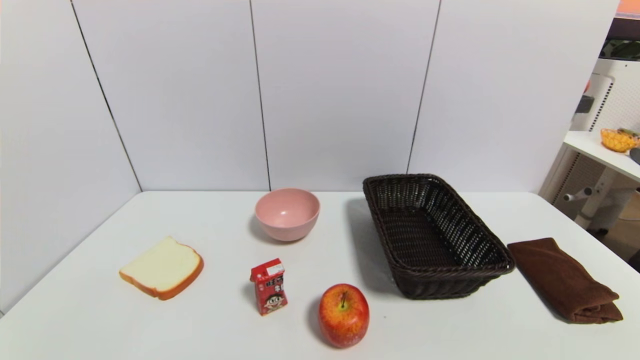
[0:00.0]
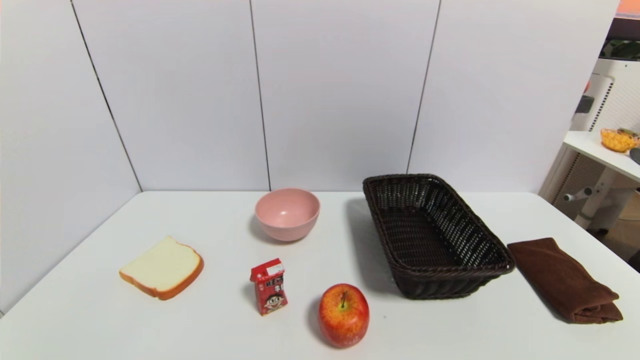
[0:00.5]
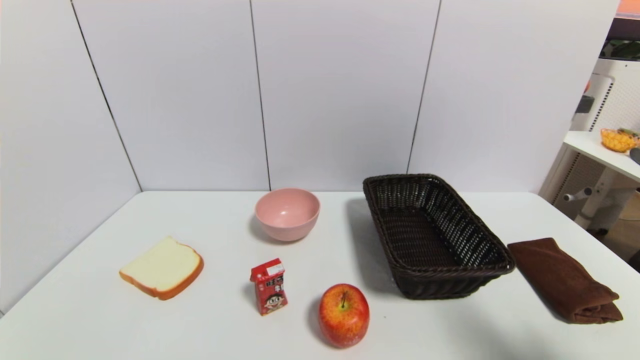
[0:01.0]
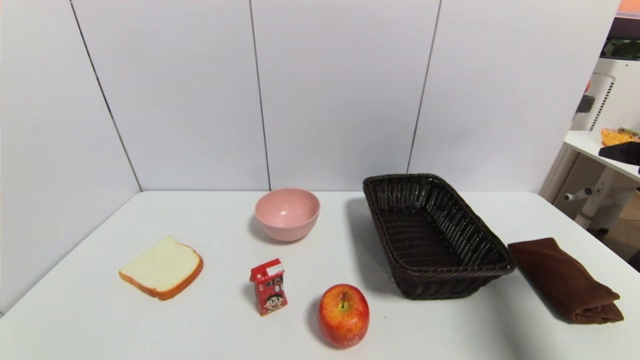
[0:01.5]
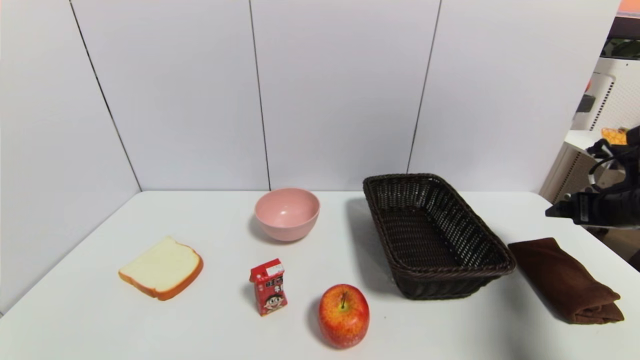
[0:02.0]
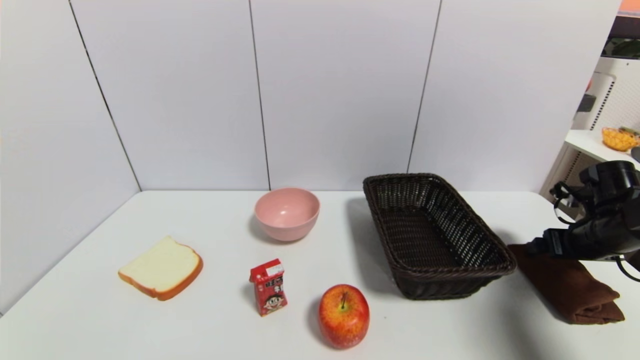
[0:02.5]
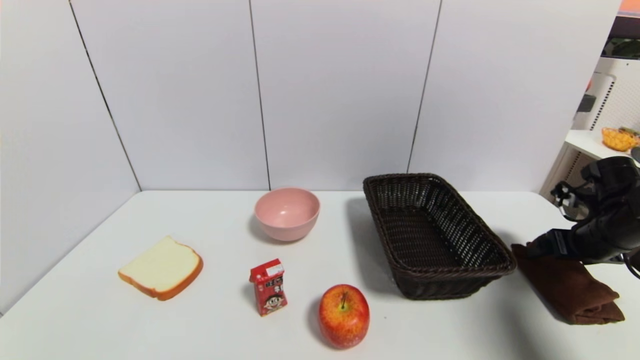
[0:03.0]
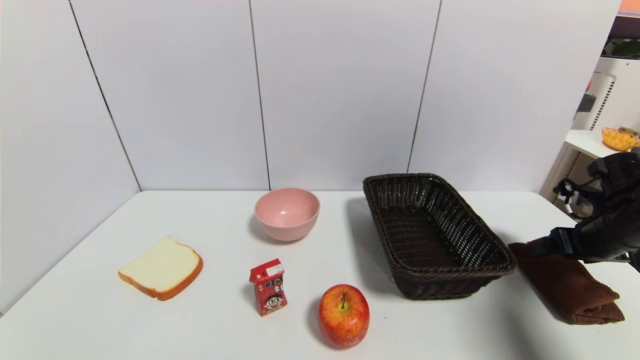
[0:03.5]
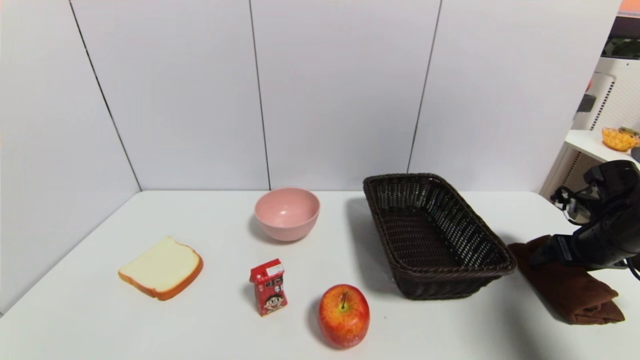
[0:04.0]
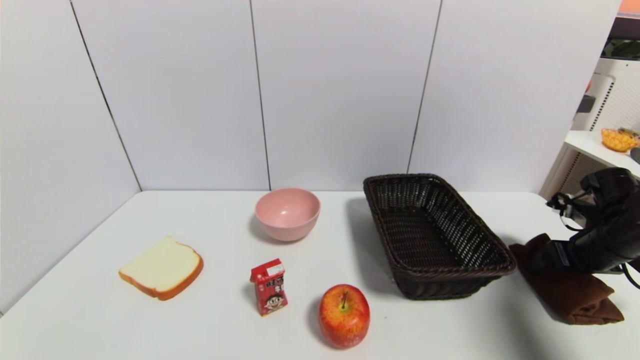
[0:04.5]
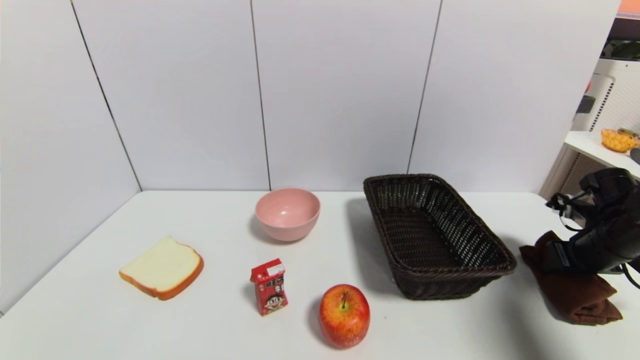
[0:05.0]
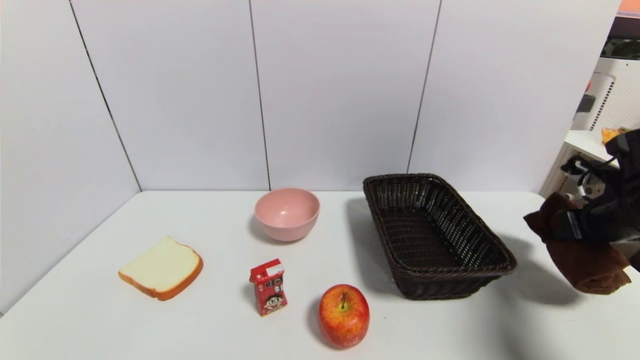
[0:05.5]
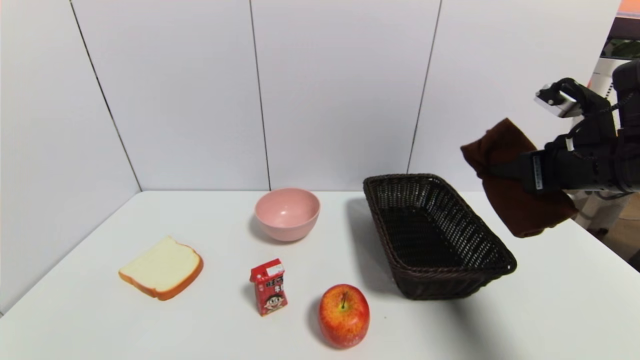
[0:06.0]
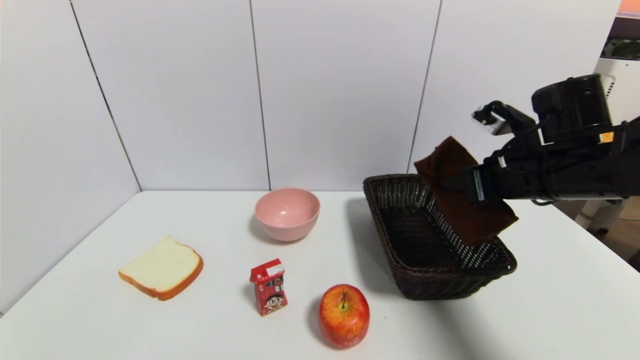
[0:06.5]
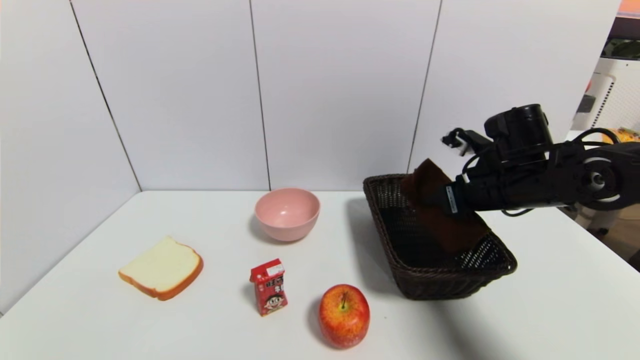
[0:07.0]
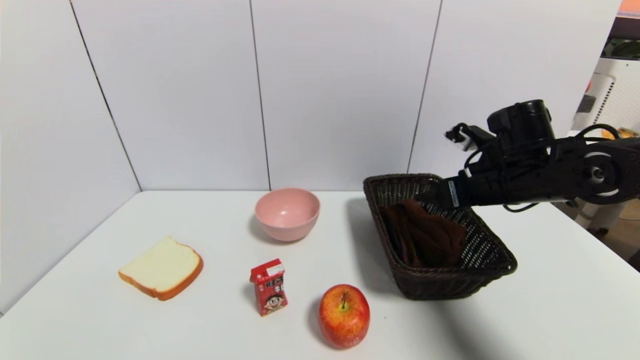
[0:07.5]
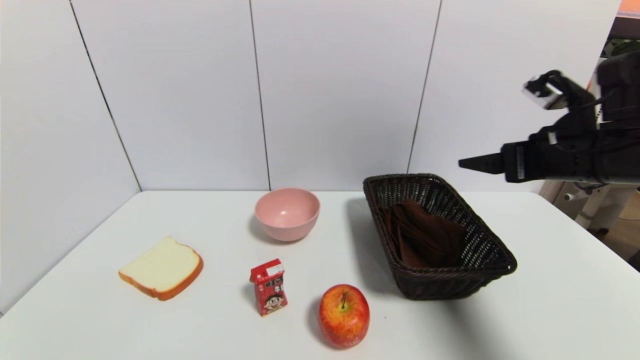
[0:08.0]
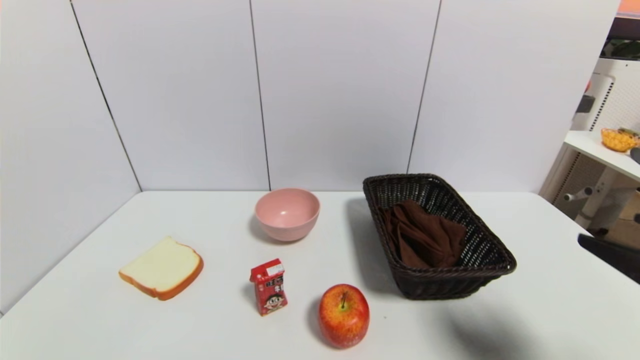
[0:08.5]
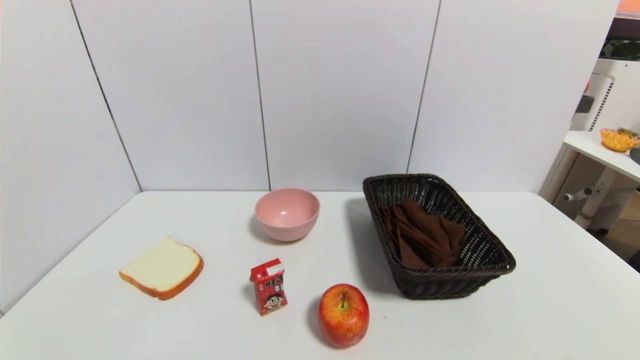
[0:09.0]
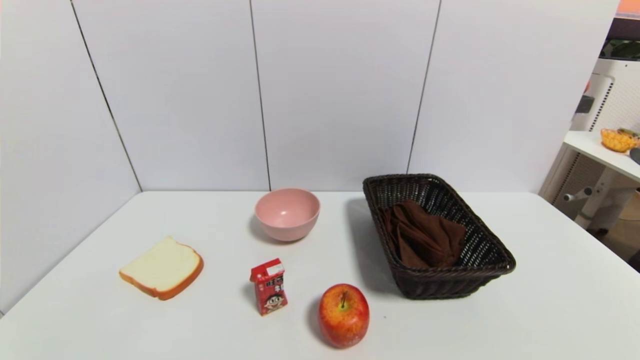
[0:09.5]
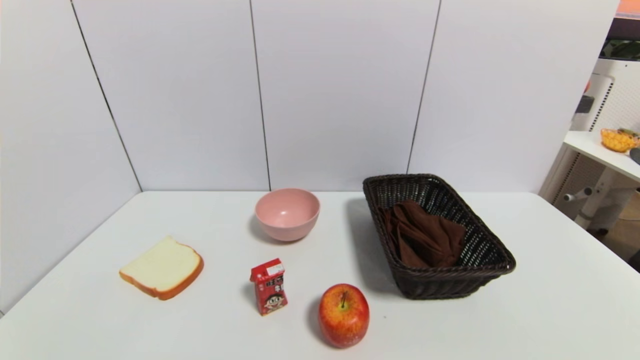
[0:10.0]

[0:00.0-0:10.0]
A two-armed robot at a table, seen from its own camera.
Task of the whole recording: use a gripper to pick the target object and place on the brown basket.
Step, 0:00.0 to 0:05.0: Grasp the brown towel with the right gripper.
Step, 0:05.5 to 0:07.0: Place the brown towel into the basket with the right gripper.
0:00.0 to 0:02.0: The right gripper travels forward by some 30 cm.
0:02.0 to 0:04.0: The right gripper heads downward, covering approximately 5 cm.
0:04.0 to 0:06.0: The right gripper is displaced upward and to the left by approximately 20 cm, and closes.
0:06.0 to 0:08.0: The right gripper travels downward and back again, some 5 cm each way, and opens.
0:08.0 to 0:10.0: The right gripper heads backward and downward, covering some 35 cm.
